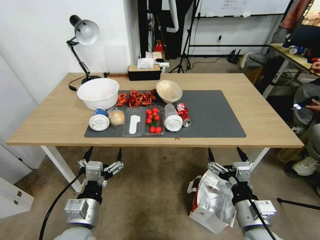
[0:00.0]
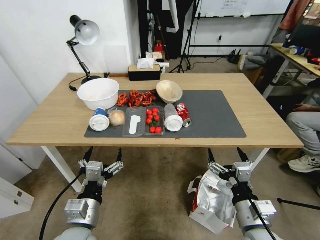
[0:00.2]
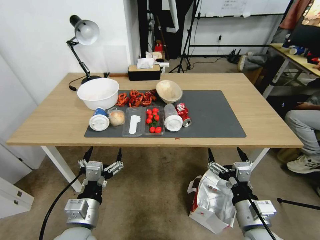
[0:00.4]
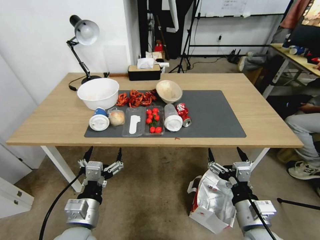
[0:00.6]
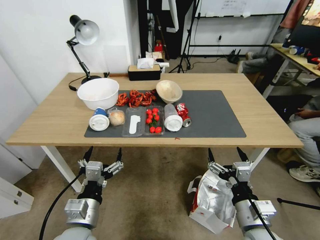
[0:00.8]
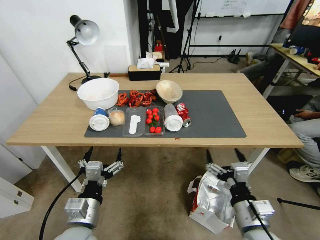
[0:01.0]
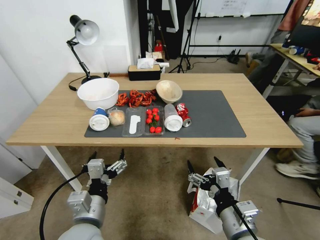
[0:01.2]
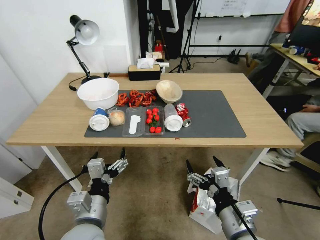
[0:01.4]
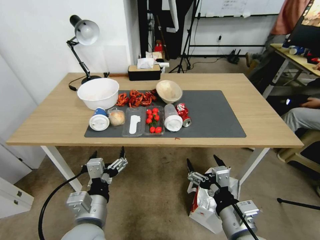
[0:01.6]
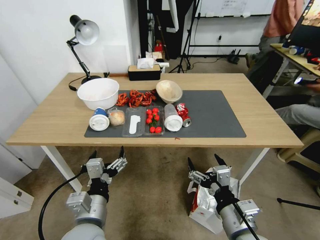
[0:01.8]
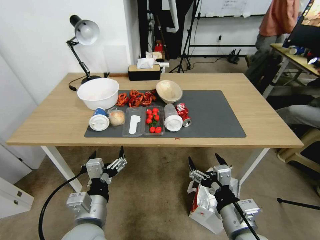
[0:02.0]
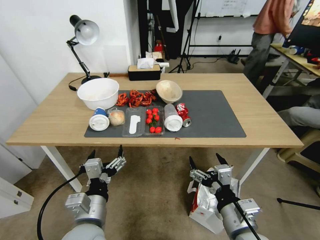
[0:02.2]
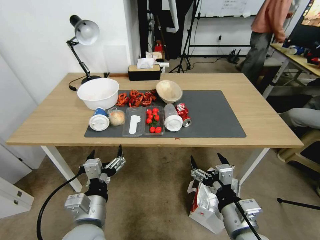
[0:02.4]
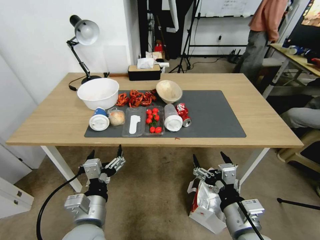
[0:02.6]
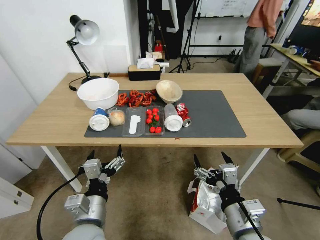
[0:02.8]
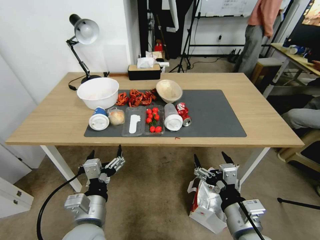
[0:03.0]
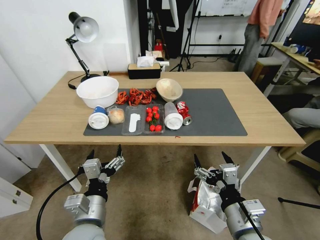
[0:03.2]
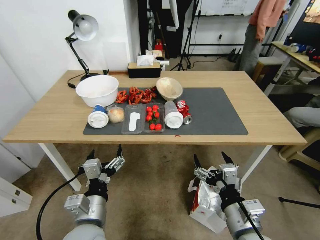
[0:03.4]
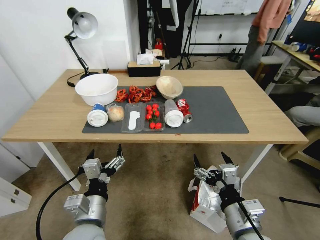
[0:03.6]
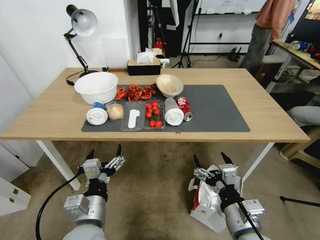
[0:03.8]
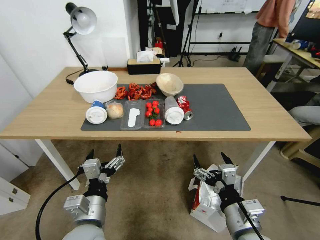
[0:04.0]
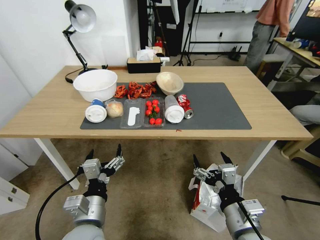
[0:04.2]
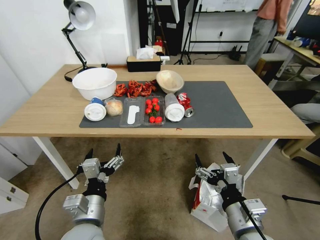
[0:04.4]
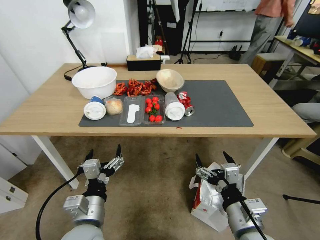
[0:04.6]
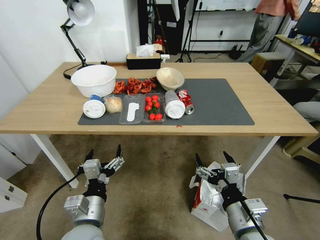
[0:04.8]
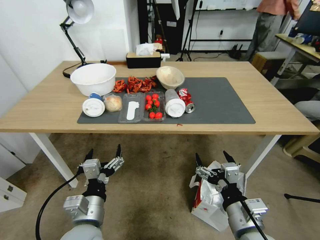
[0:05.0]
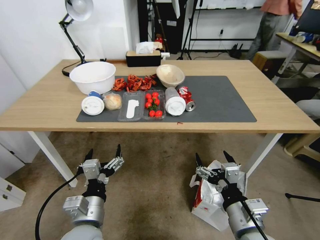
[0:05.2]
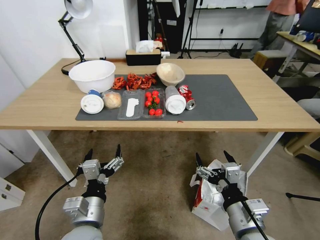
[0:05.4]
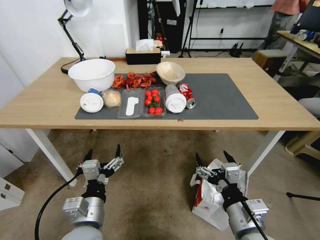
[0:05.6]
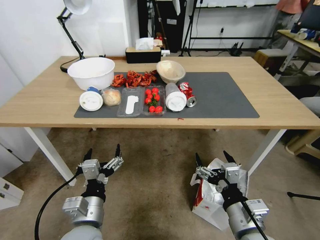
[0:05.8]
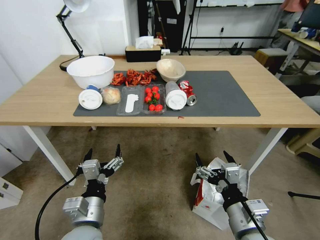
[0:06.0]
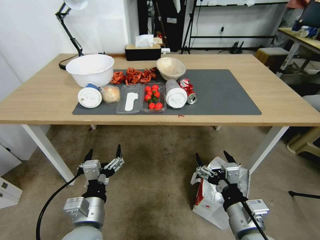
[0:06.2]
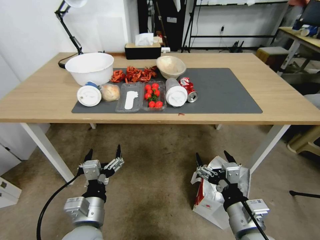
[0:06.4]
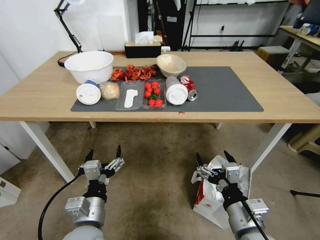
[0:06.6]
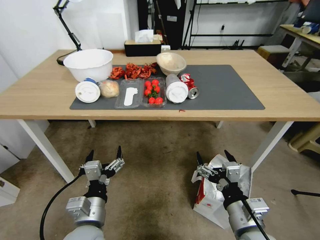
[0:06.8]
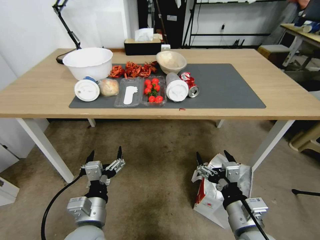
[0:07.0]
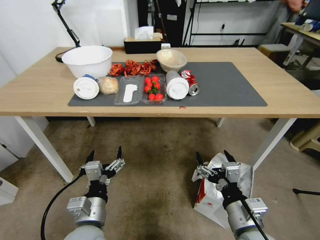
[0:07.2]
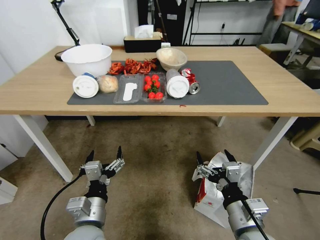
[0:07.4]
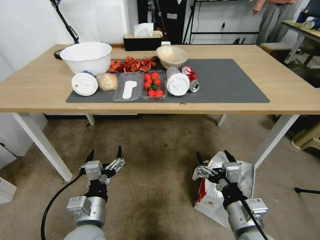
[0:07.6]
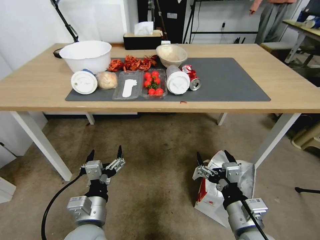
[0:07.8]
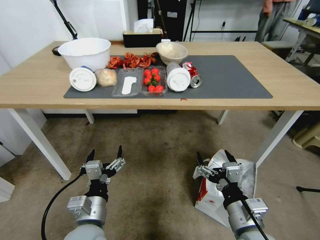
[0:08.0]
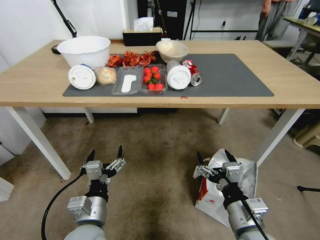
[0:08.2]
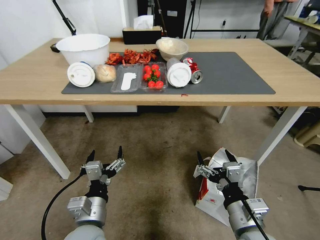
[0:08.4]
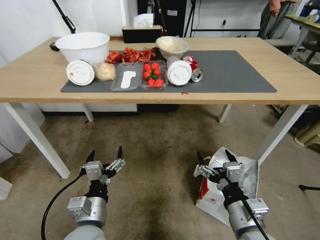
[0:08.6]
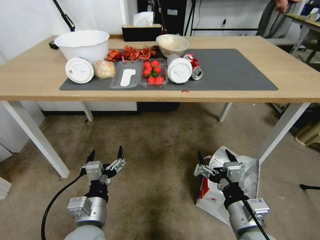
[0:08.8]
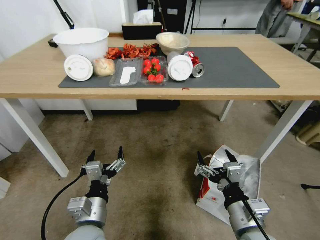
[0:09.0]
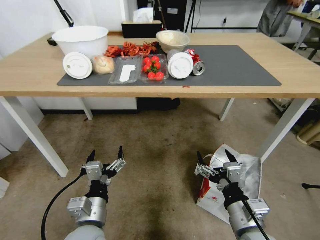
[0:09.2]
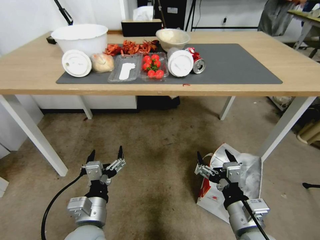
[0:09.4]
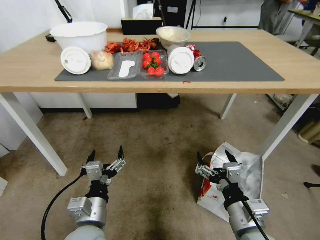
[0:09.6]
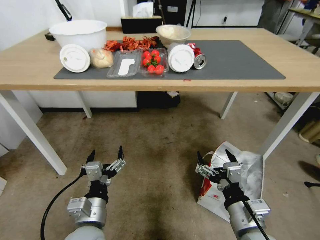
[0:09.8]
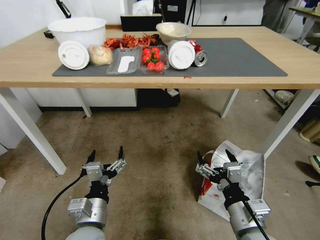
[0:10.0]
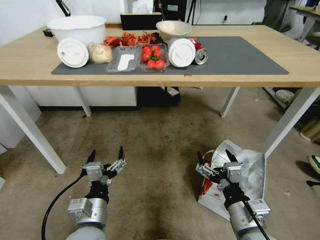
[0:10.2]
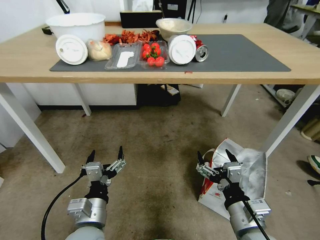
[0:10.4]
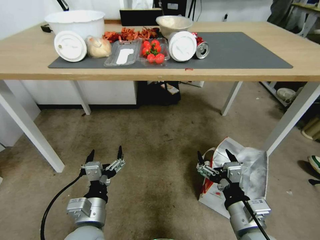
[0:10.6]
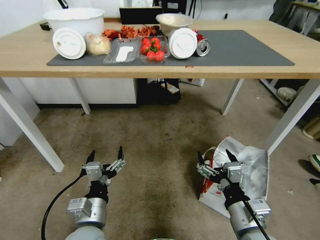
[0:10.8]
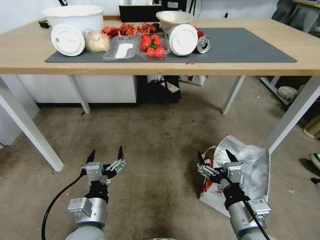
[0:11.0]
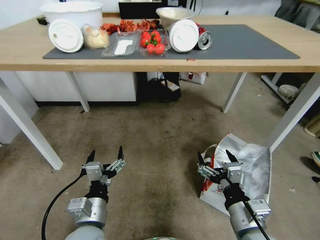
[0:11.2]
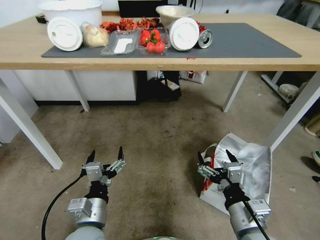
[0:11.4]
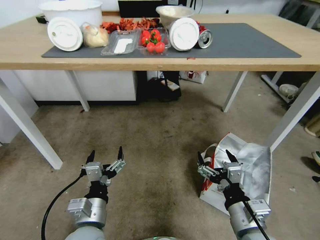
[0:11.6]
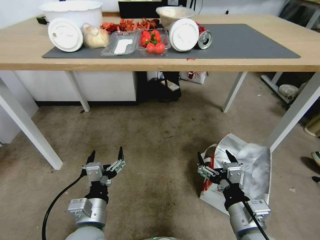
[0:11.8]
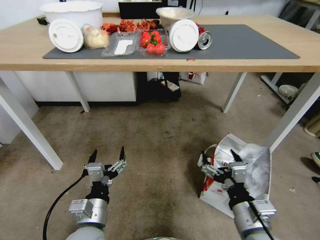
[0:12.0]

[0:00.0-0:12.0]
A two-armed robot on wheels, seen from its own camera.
Task of the whole recording: Pick up the food delivery bag from the floor and place it on the table.
0:01.6 to 0:03.0: Neither gripper changes place.

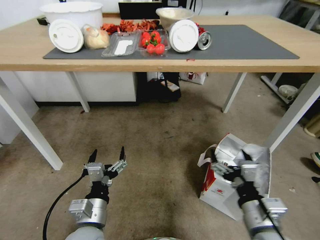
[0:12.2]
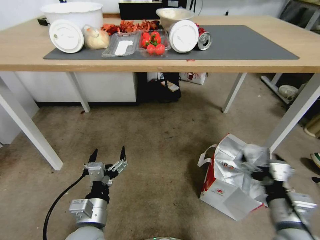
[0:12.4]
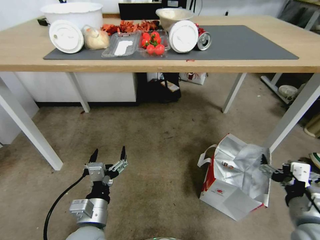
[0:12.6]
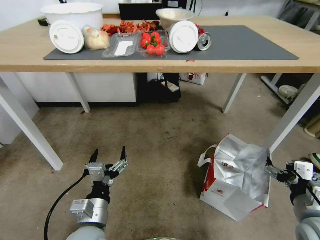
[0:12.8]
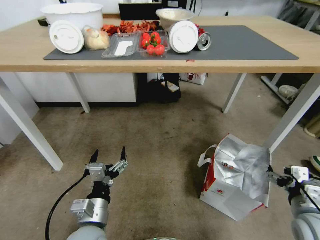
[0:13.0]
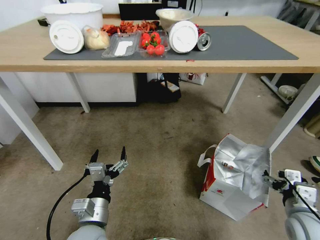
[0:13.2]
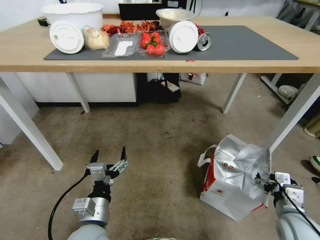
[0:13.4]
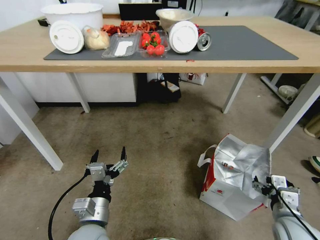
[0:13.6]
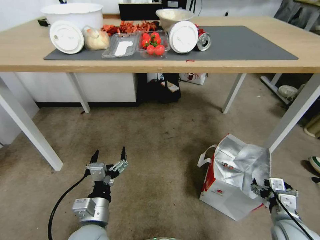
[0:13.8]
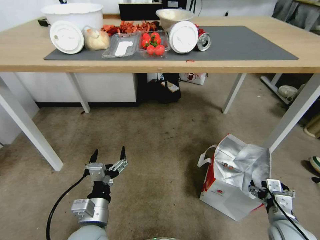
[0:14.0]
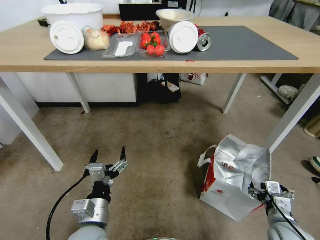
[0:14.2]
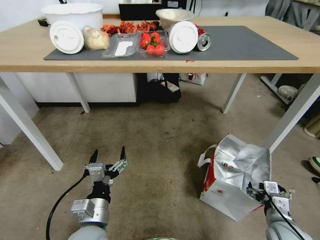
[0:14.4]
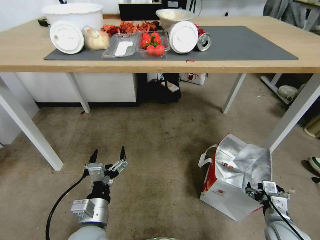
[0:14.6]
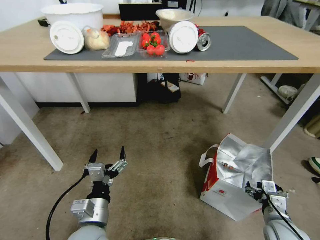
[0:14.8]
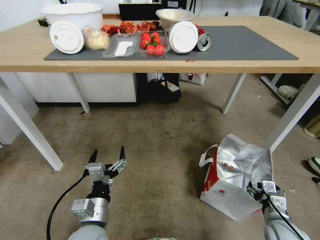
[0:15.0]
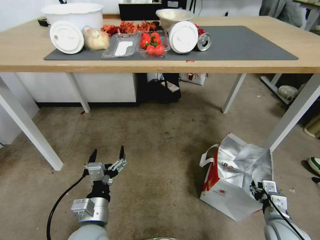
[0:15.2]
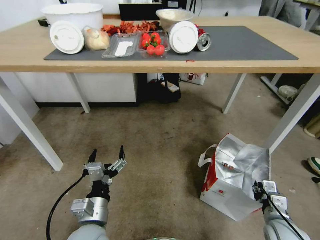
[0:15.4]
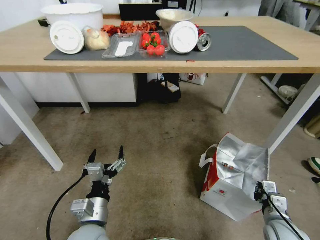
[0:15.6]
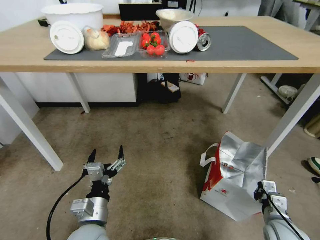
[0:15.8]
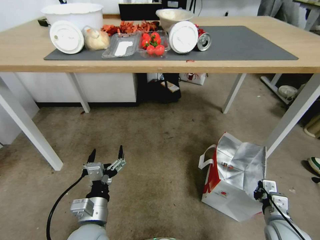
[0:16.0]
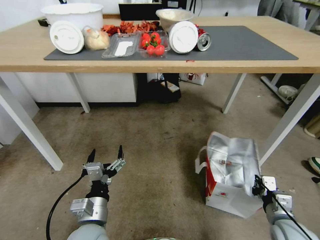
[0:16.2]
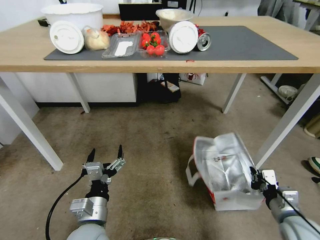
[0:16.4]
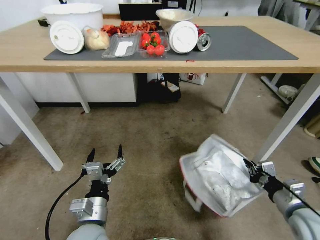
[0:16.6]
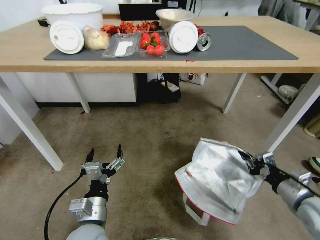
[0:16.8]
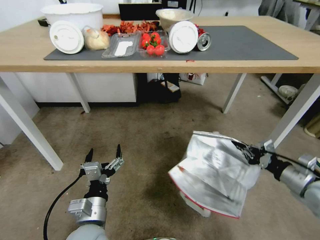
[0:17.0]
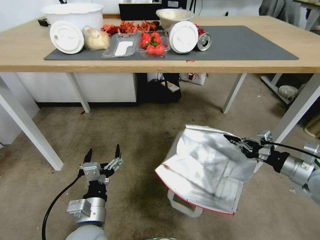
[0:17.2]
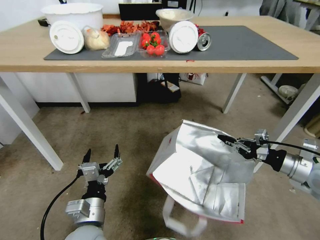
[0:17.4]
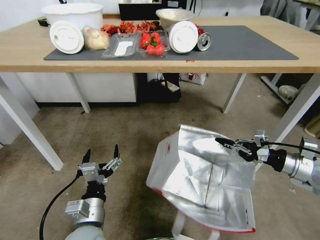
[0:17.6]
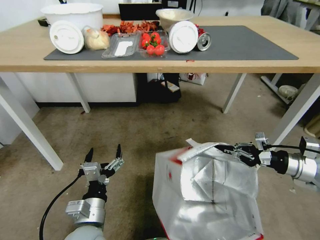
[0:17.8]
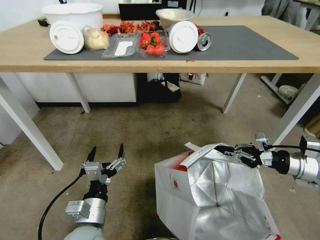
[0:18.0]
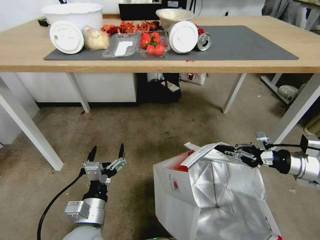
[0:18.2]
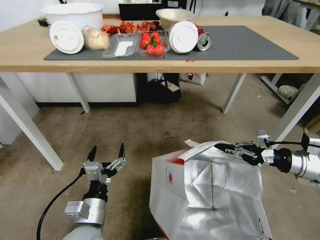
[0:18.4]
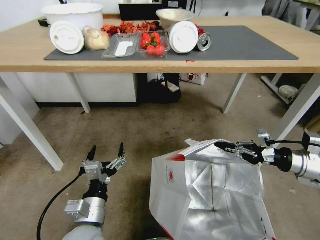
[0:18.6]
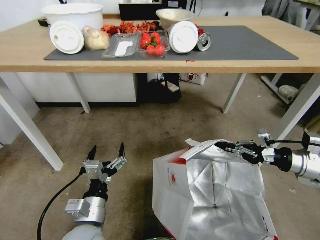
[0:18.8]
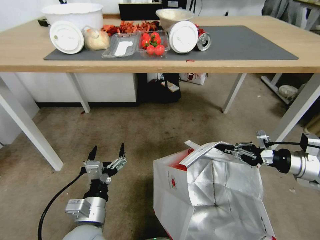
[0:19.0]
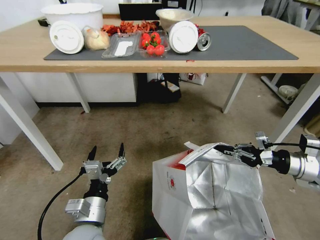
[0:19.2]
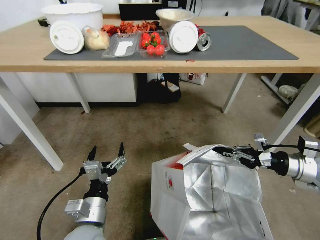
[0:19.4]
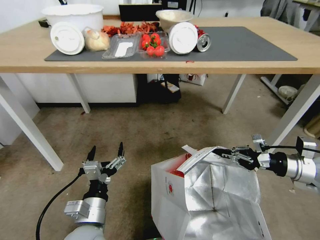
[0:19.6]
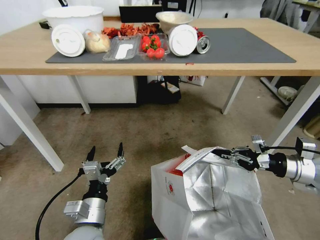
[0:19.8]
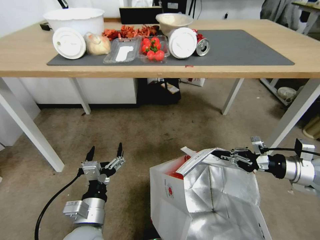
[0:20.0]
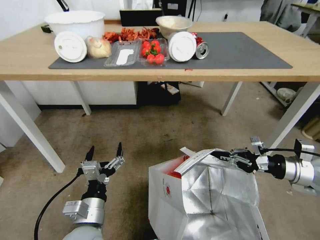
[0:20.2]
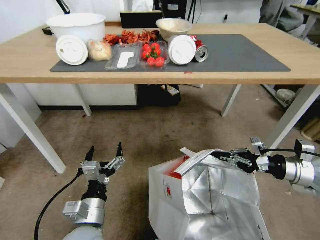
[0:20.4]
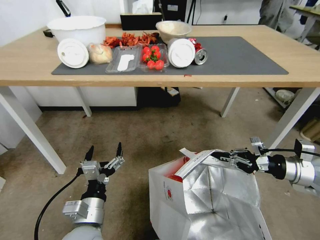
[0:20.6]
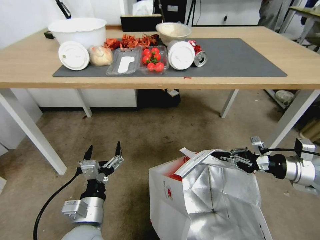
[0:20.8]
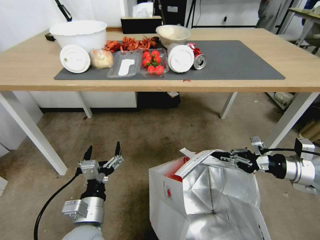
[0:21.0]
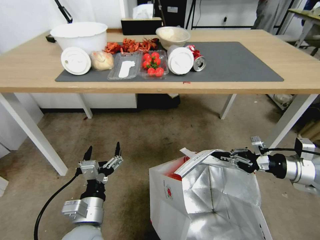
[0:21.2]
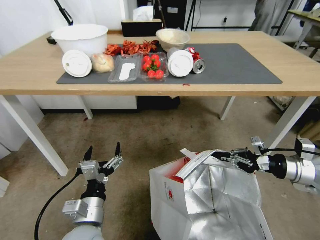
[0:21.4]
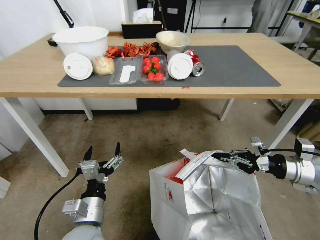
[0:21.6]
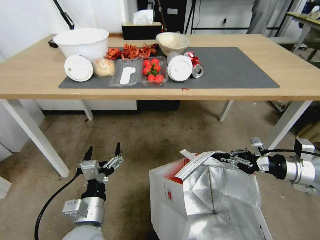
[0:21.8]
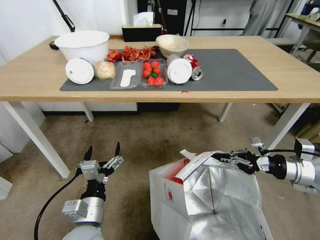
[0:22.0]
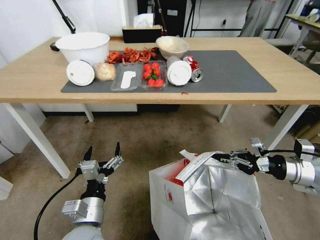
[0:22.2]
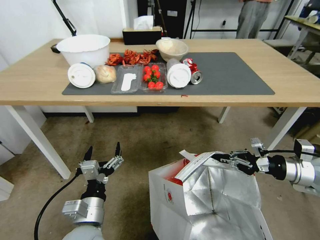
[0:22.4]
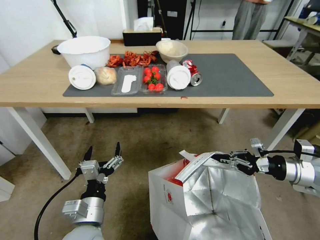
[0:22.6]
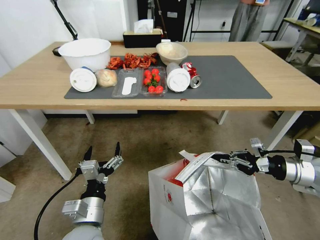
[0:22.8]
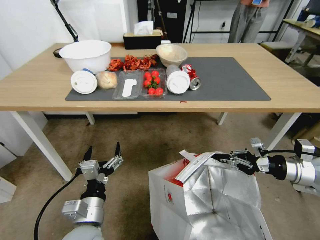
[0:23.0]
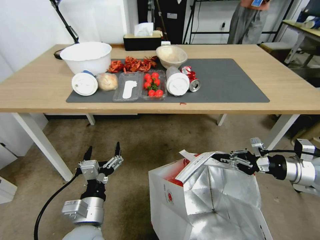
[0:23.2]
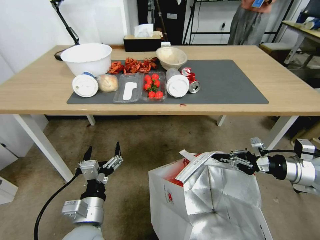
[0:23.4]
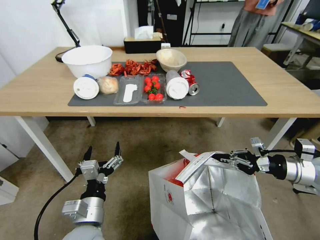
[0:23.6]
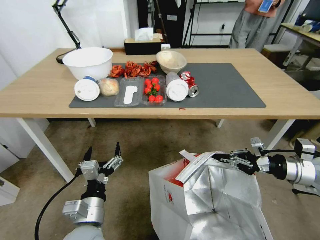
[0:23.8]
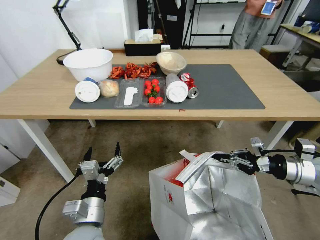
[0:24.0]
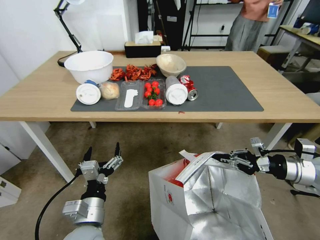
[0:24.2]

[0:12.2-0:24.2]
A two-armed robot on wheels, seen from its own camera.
Task of the whole recording: Pick up the food delivery bag from the floor and place it on the table.
0:12.2 to 0:13.8: The right gripper travels to the right and downward by about 15 cm.
0:13.8 to 0:15.2: The right gripper closes up.
0:15.2 to 0:16.6: The right gripper shifts some 5 cm upward, and closes up.
0:16.6 to 0:18.2: The right gripper is displaced forward, upward and to the right by some 15 cm.
